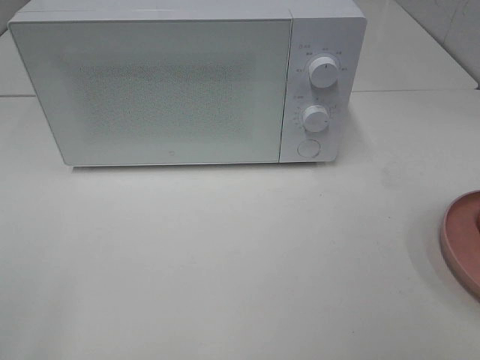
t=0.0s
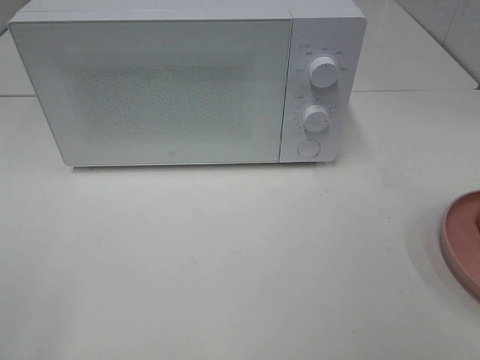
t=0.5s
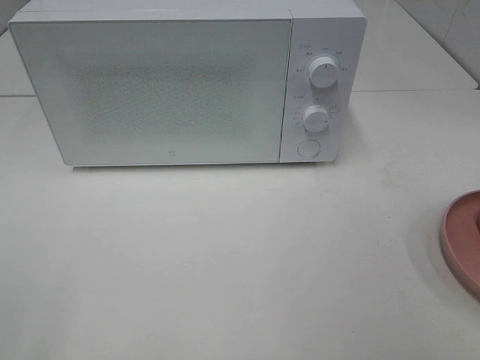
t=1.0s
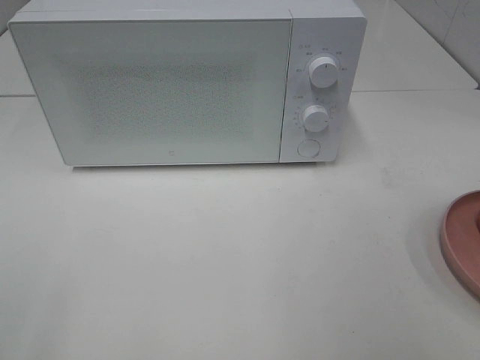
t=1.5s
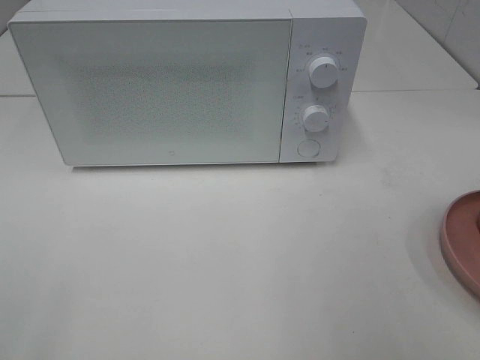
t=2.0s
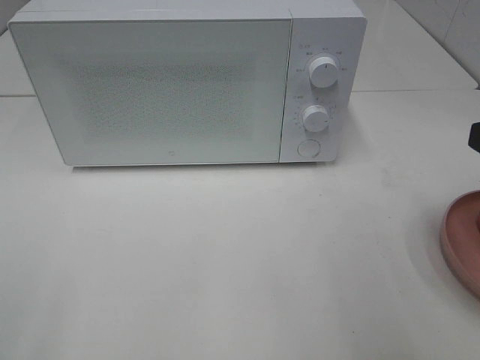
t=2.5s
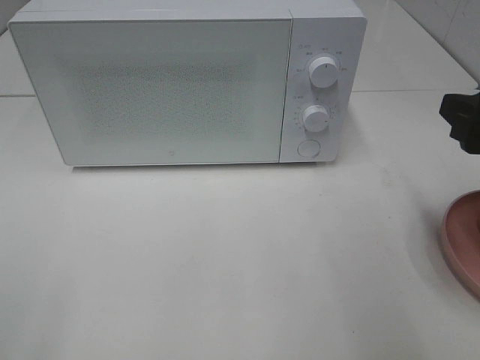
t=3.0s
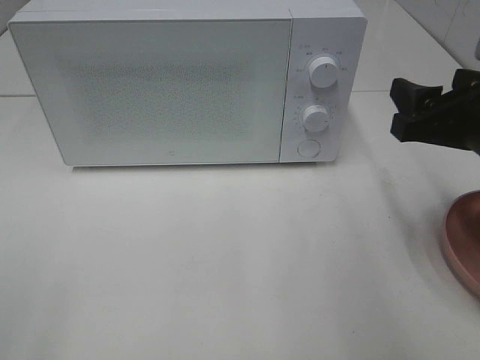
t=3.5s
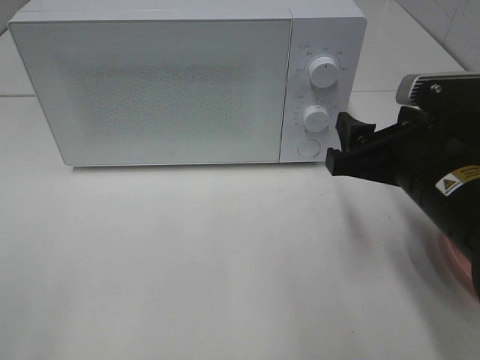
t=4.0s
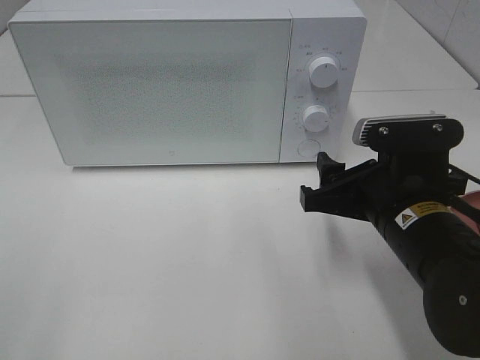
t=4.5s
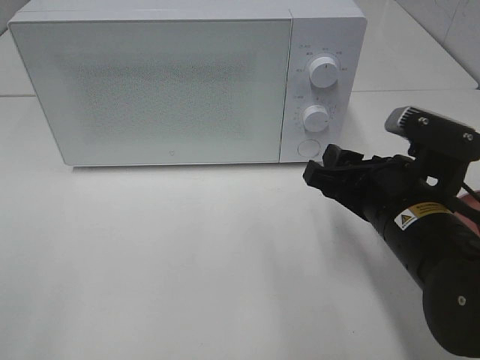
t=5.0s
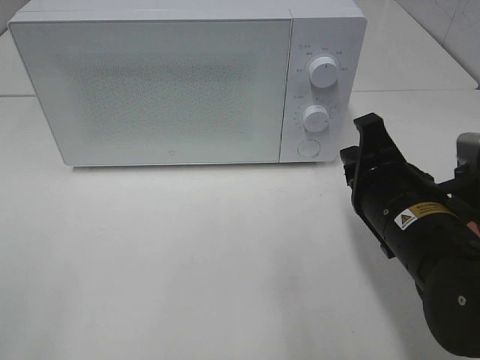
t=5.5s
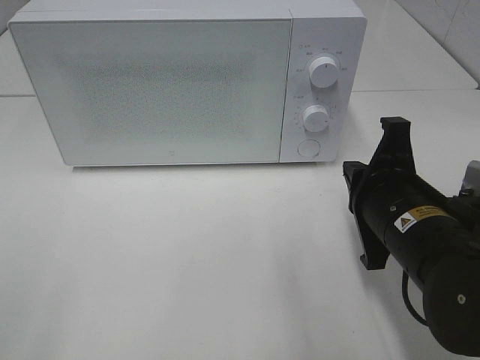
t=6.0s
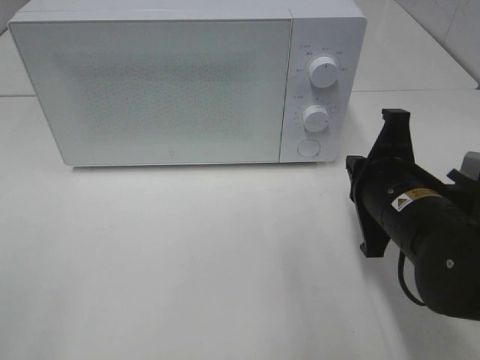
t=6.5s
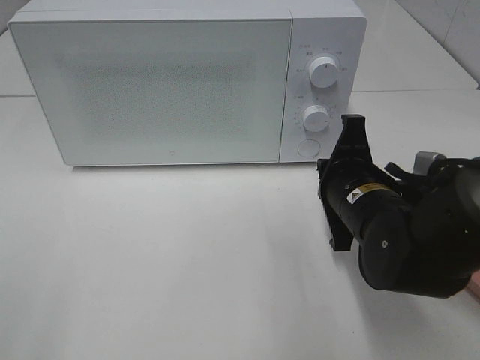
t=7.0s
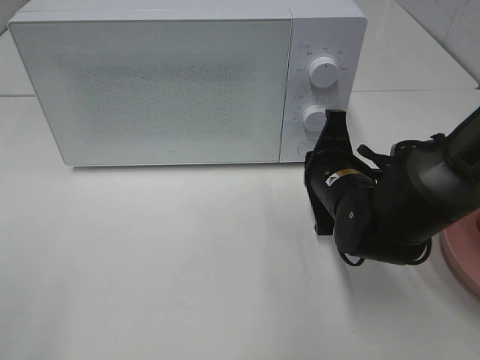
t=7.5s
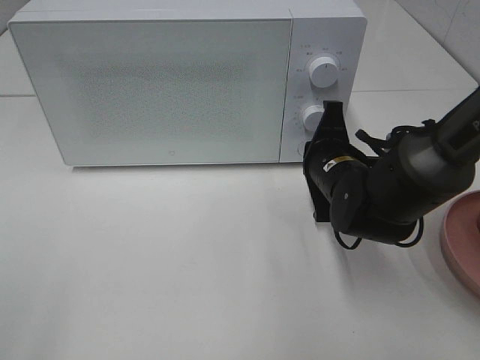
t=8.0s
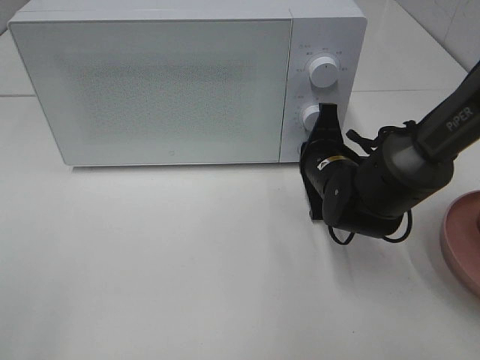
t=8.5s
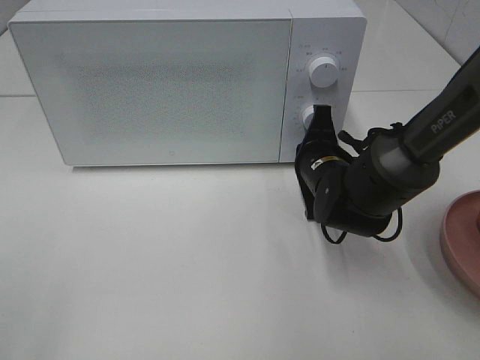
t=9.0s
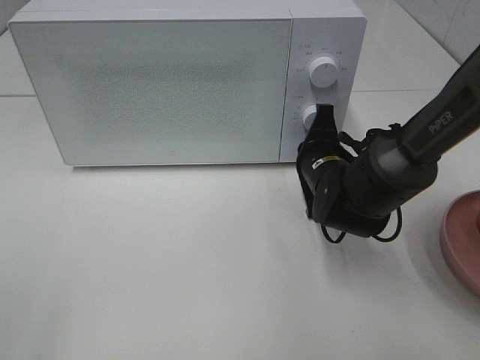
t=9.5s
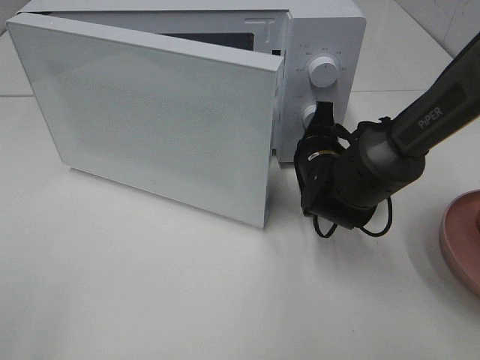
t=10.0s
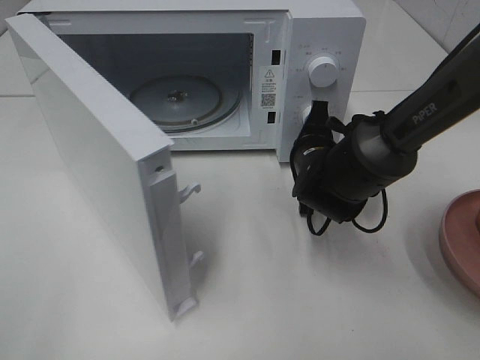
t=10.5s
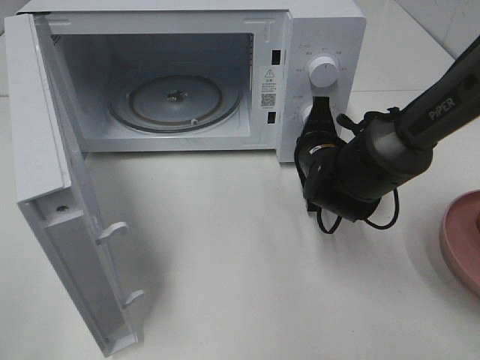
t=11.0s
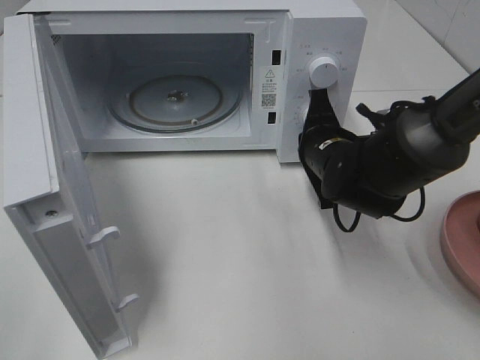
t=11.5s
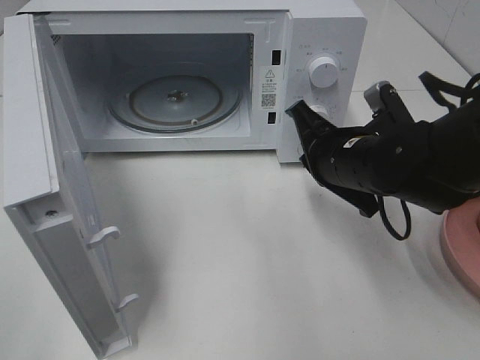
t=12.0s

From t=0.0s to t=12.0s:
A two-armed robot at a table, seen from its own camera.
Task of the whole recording: Heat the burger.
Step, from t=0.0s to t=11.5s: Right hand: press the switch.
From t=2.0s to t=4.0s: The right gripper is displaced downward, forward and to the left by approximately 20 cm.
From t=4.0s to t=6.0s: The right gripper closes.
From t=6.0s to t=8.0s: The right gripper is displaced forward by approximately 10 cm.
From t=8.0s to t=10.0s: The grippers make only small movements.
From t=10.0s to t=12.0s: The right gripper moves backward and upward, roughly 10 cm.

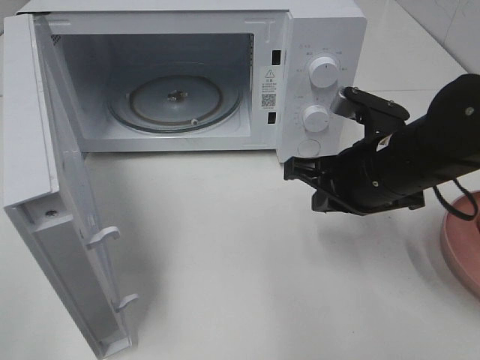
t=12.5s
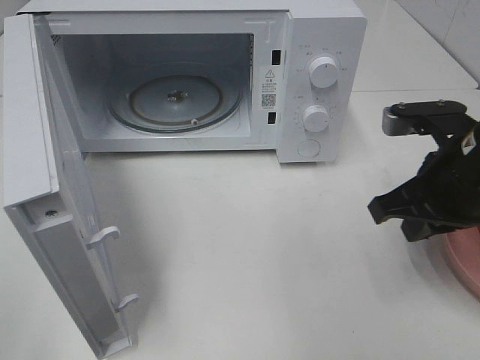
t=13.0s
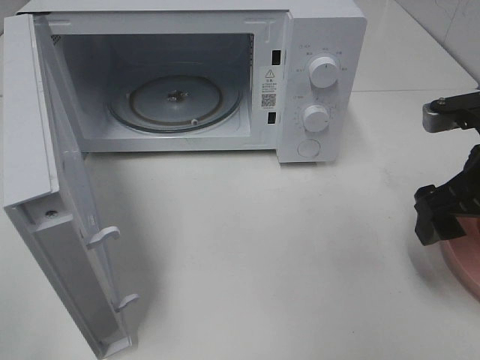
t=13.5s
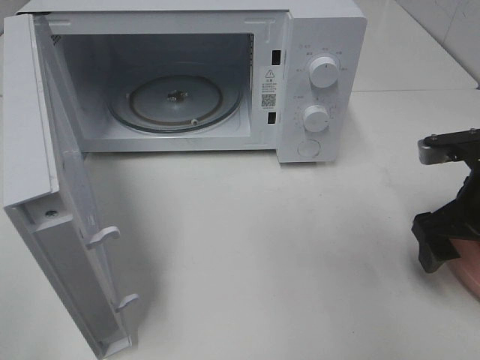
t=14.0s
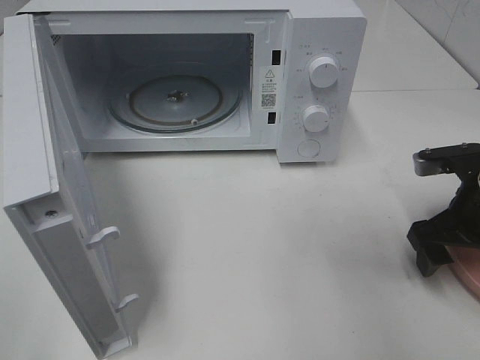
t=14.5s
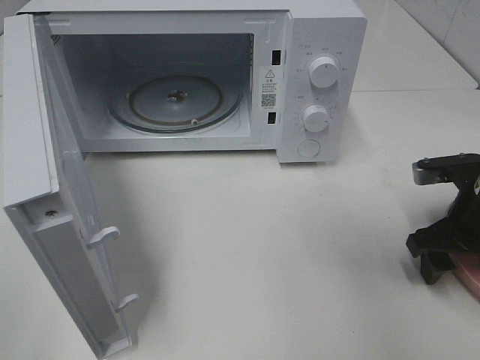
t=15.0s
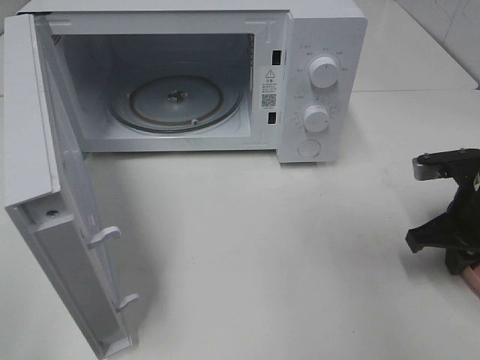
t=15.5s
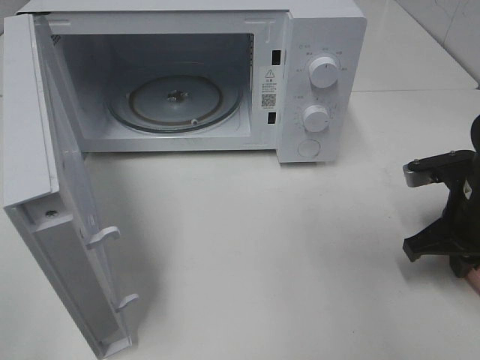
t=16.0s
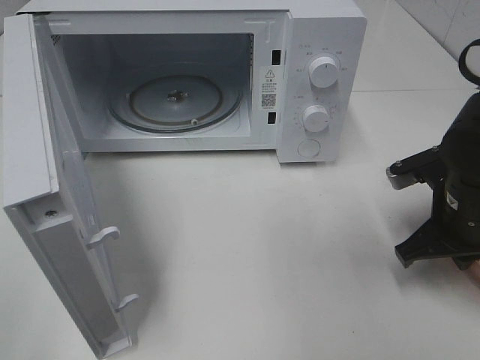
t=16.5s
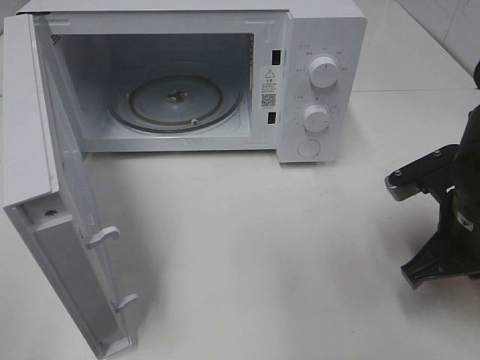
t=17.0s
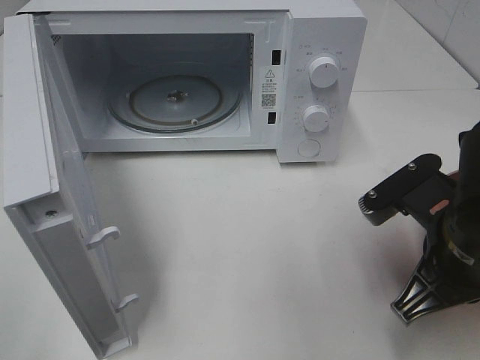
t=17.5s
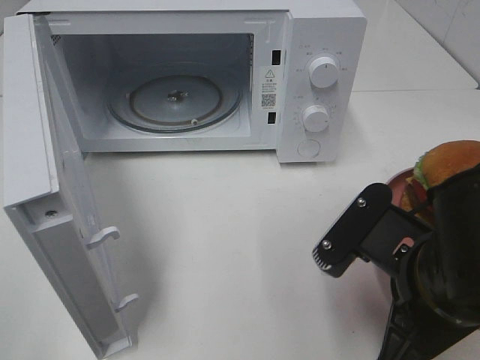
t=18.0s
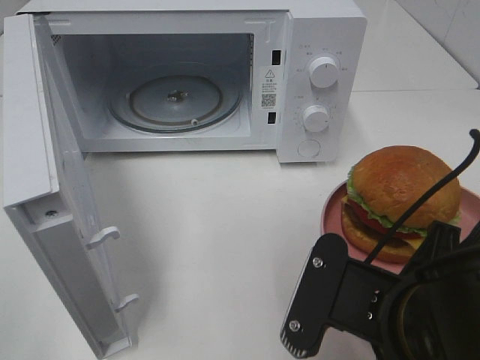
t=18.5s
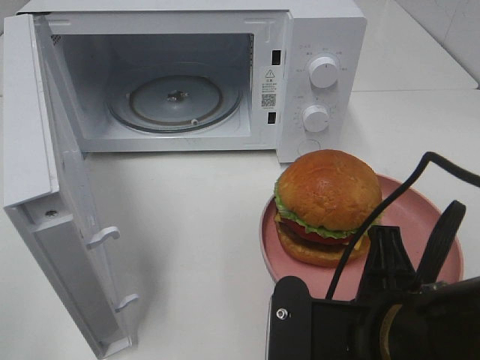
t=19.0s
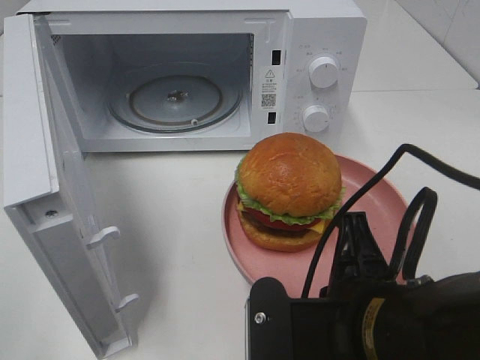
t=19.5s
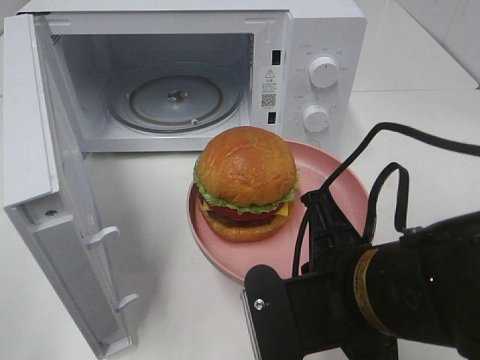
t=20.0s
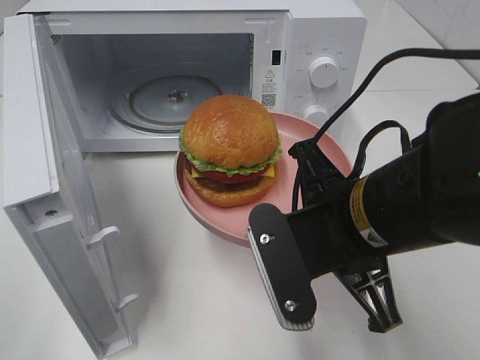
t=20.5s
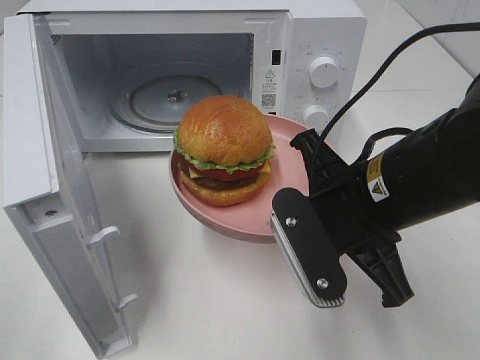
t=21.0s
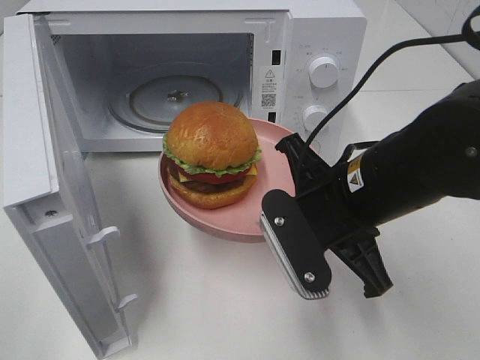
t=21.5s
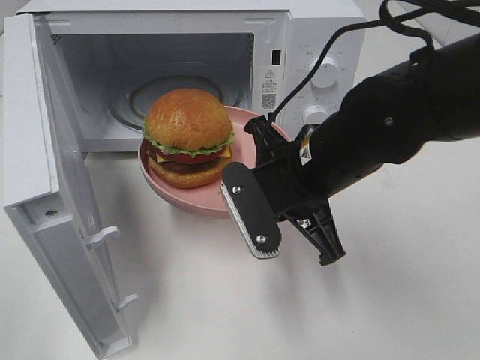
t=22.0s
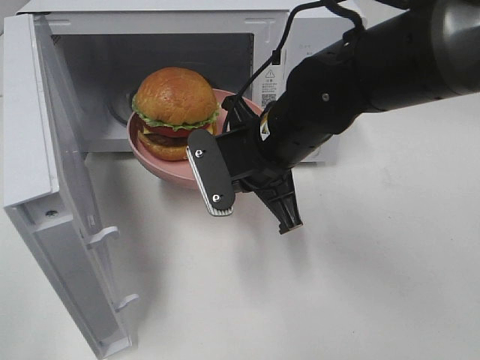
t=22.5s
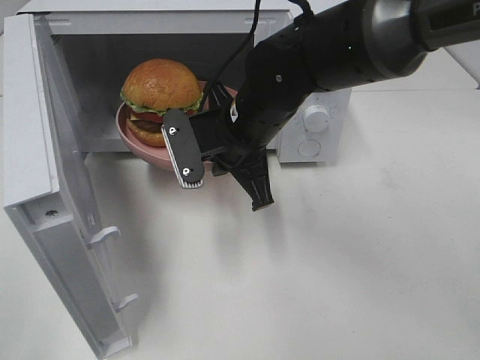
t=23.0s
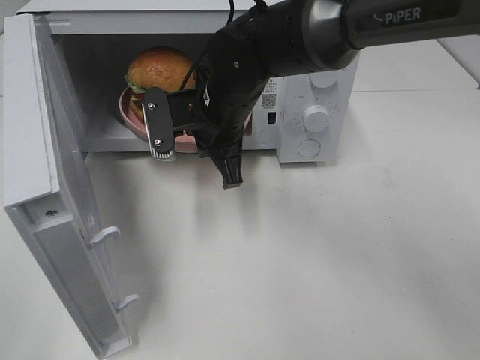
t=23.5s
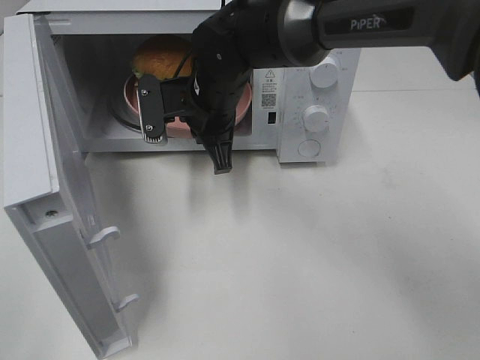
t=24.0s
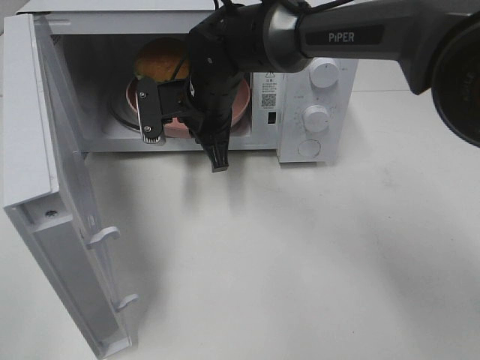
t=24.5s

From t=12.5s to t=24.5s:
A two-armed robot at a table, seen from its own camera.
Task of the whole recording: Heat the burger.
Step, from t=12.5s to t=16.0s: Right hand: grab the plate with the hamburger.
From t=12.5s to t=14.5s: The right gripper goes roughly 10 cm to the right, and opens.
From t=14.5s to t=16.5s: The right gripper closes.
From t=16.5s to t=18.5s: The right gripper travels backward and to the left by roughly 20 cm.
From t=18.5s to t=20.5s: The right gripper moves forward, approximately 10 cm.
From t=20.5s to t=22.5s: The right gripper moves forward and to the left, approximately 15 cm.
From t=22.5s to t=24.5s: The right gripper heads forward and to the left, covering roughly 15 cm.

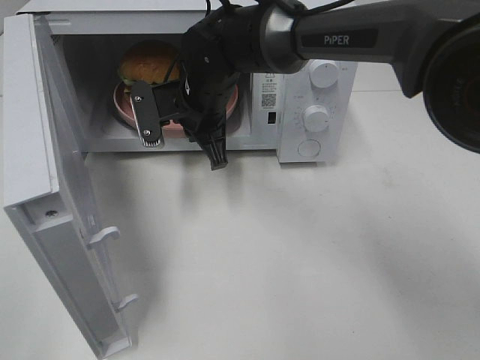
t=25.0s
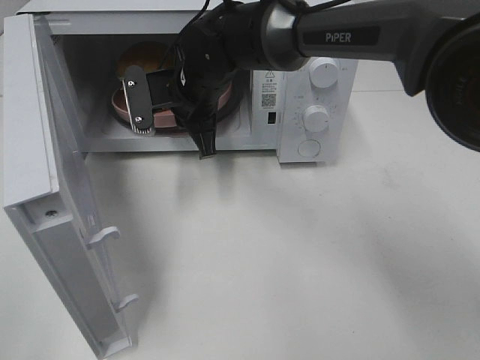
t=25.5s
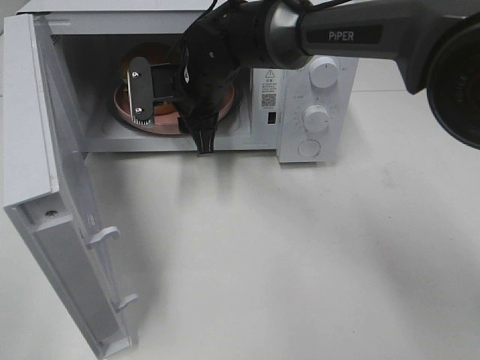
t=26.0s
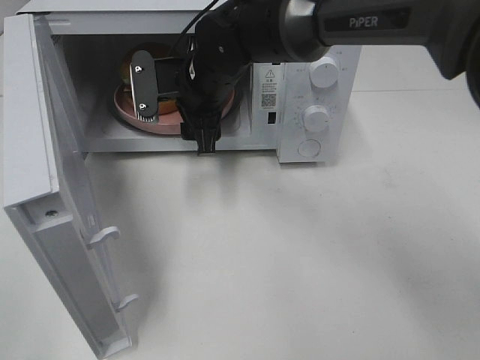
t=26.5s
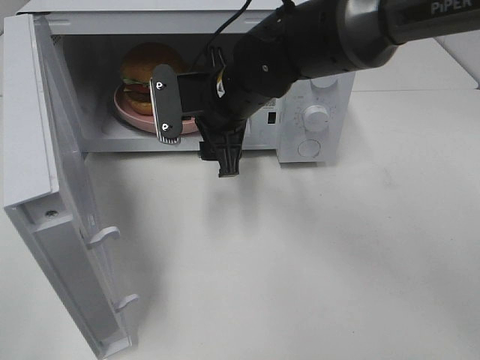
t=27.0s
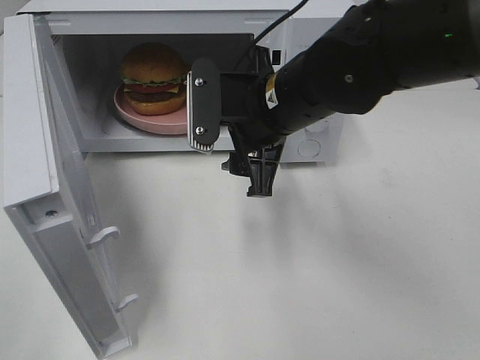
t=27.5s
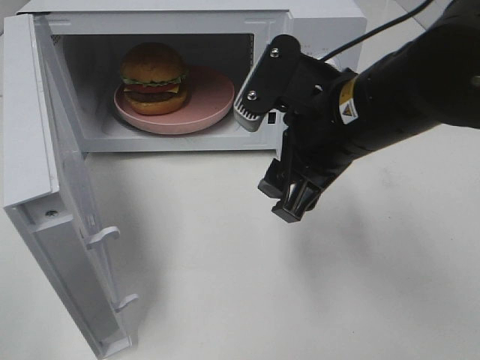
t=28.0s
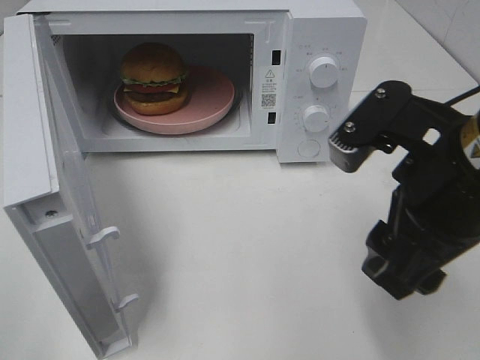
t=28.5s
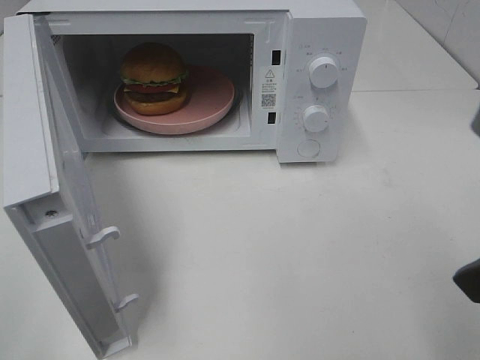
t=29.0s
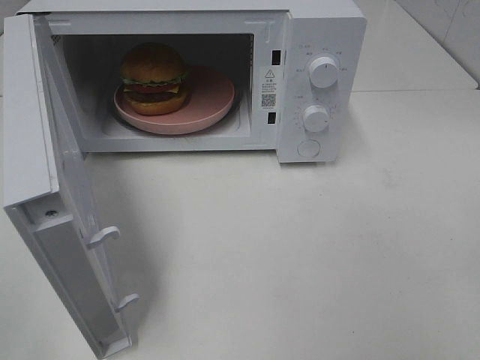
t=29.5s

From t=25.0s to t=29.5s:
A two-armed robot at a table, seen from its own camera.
Task of the whole recording: Heat the burger.
From t=25.0s to t=27.0s: The right gripper shifts about 5 cm backward, and opens up.
From t=27.0s to t=29.5s: The right gripper is displaced backward and to the right by roughly 40 cm.
